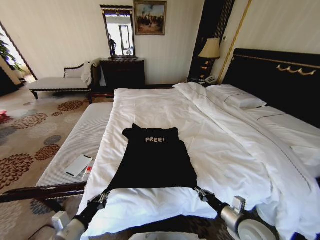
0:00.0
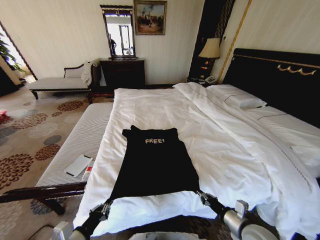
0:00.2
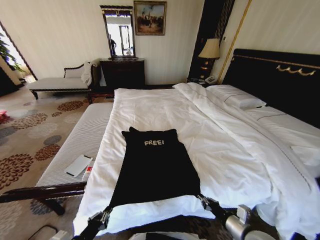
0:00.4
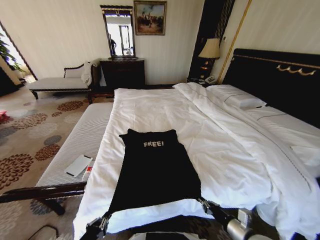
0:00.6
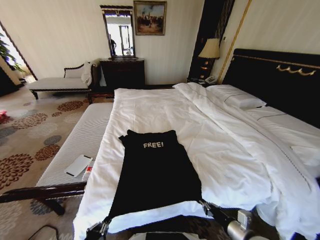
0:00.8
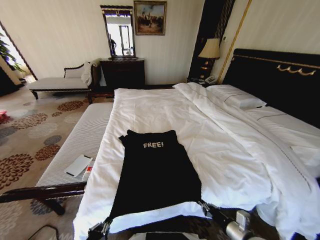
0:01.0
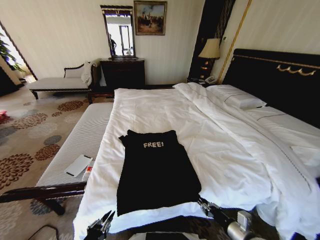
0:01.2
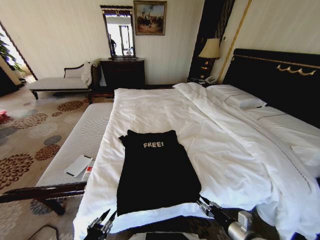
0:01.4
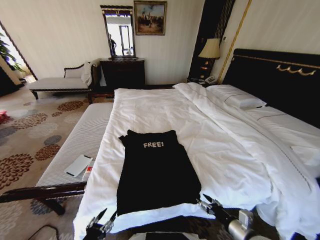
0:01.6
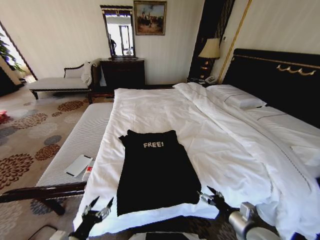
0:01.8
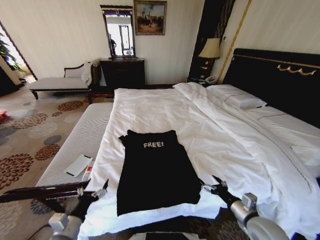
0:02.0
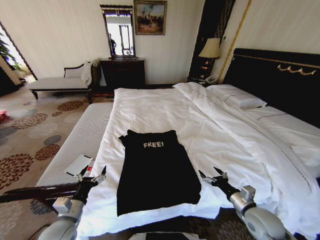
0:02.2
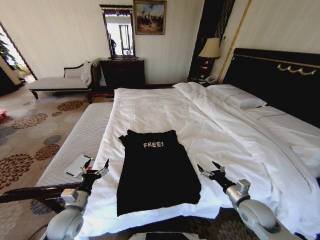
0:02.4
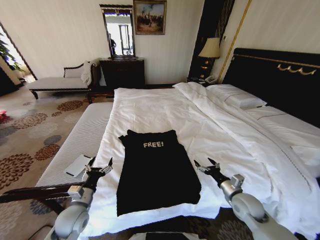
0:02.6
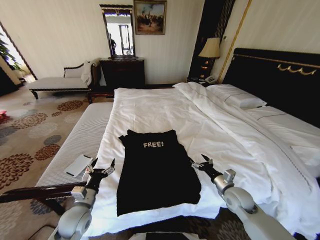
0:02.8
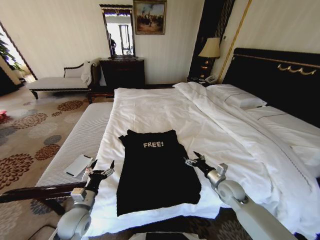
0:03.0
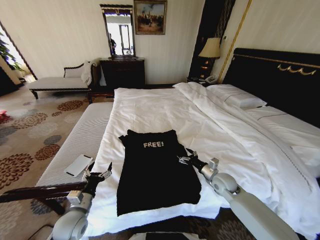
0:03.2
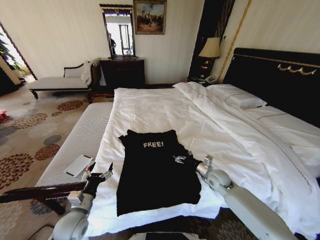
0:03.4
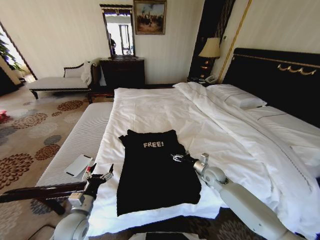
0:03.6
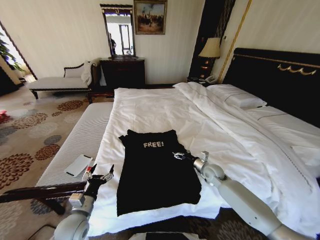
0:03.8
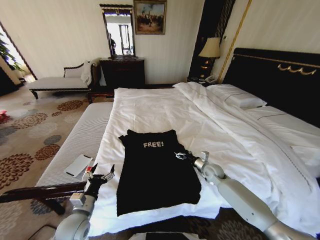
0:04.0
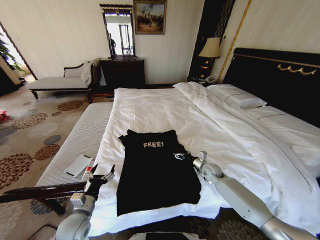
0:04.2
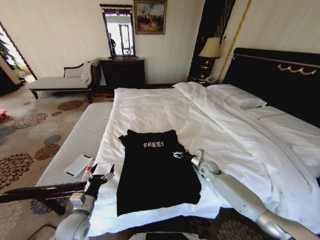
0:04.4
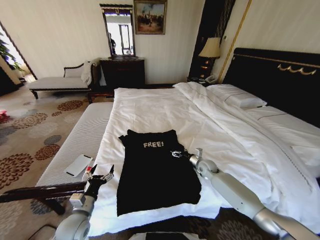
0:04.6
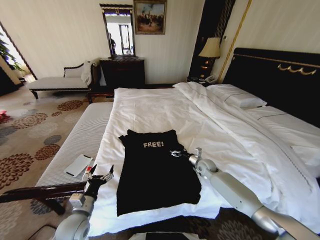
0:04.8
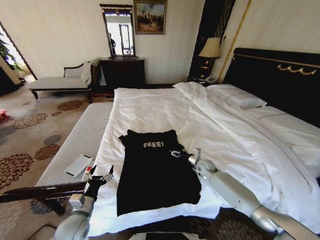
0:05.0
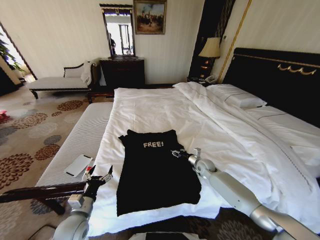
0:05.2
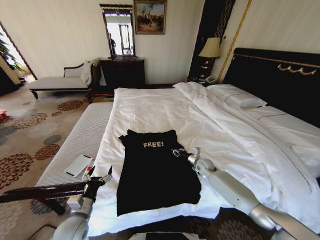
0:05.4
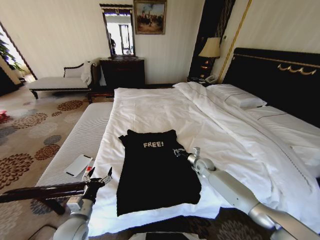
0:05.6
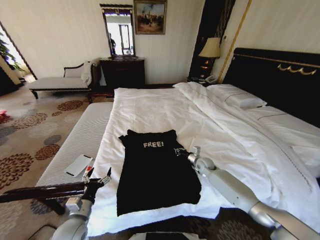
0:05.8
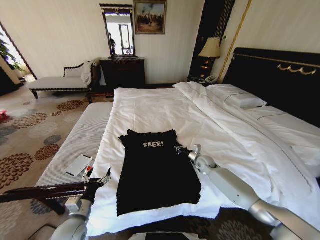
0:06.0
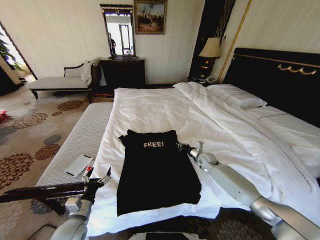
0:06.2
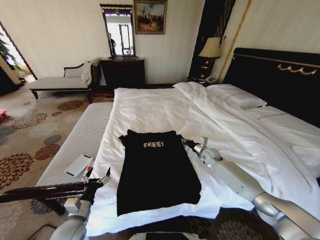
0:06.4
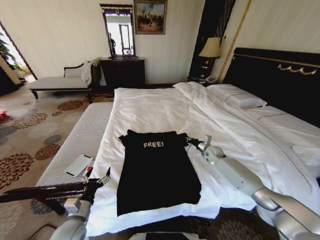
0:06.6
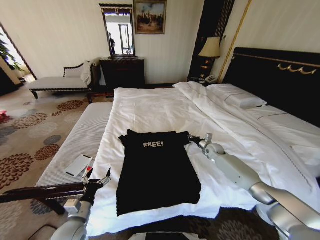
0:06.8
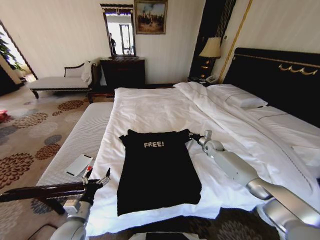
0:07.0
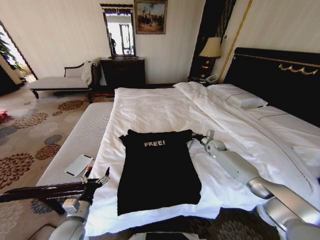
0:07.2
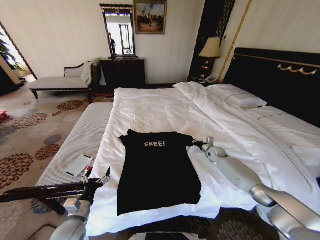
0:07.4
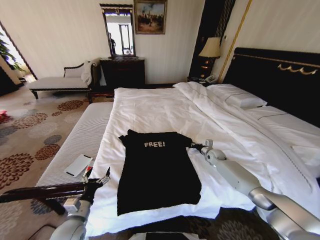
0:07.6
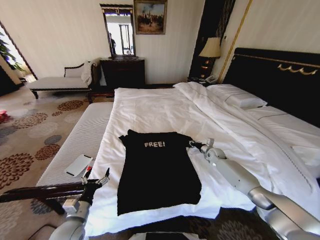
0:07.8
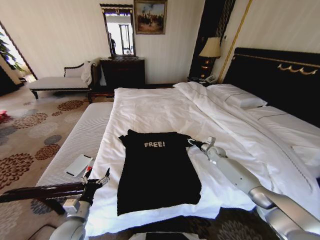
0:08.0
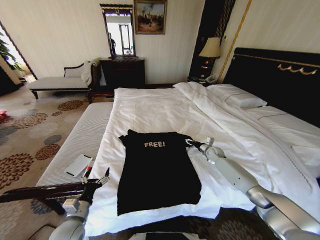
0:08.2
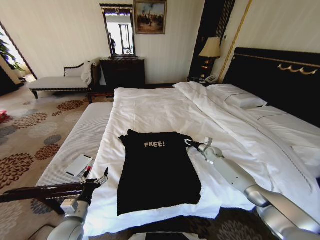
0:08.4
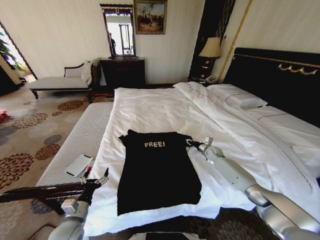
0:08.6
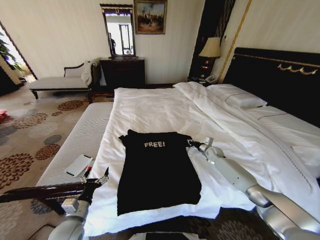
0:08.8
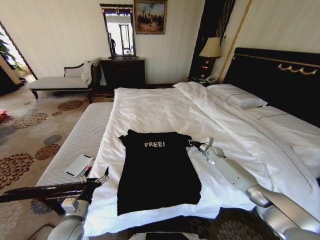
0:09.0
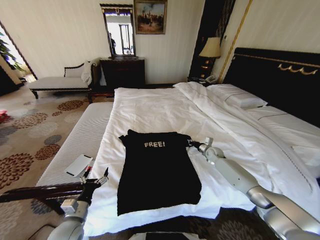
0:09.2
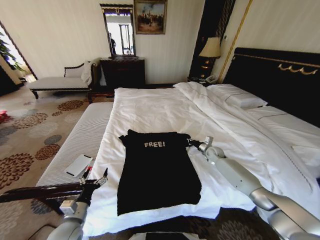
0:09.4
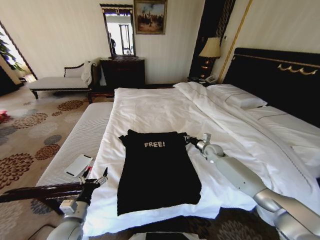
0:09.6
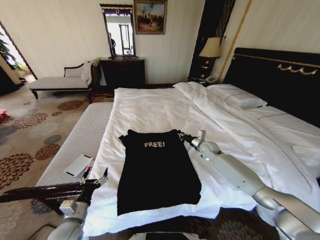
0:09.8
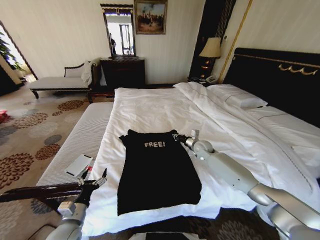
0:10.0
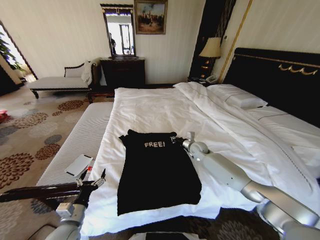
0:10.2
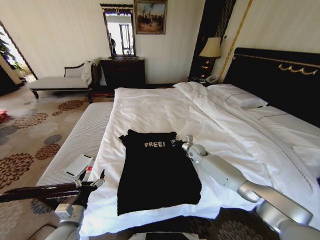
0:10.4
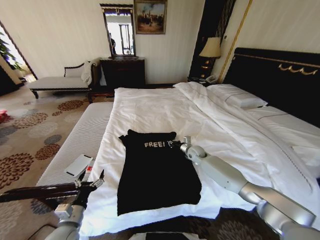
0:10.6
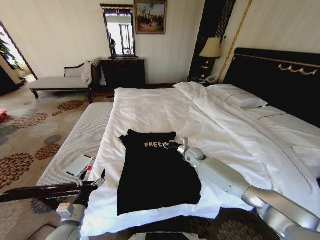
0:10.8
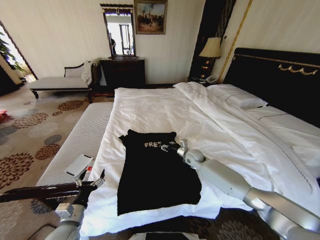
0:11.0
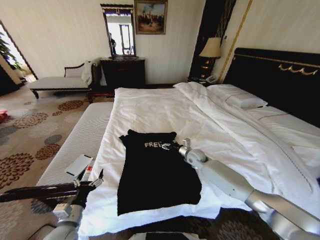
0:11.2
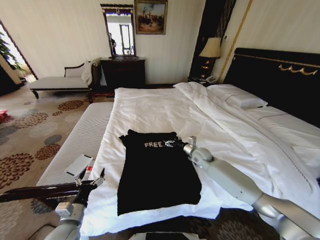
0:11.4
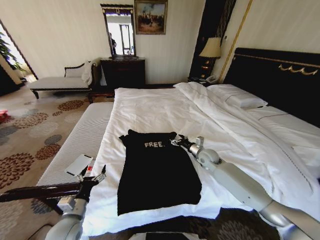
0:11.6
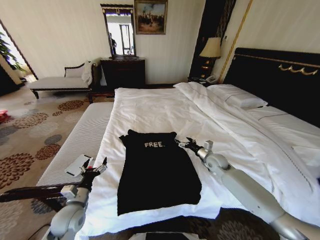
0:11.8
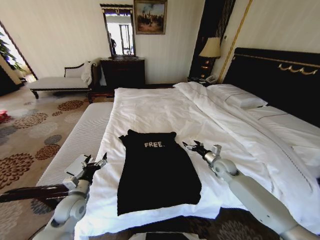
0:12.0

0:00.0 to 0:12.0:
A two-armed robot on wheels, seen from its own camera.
Task of the whole recording: Fold the clothes on the bed.
0:00.0 to 0:01.6: The left gripper shifts about 10 cm backward, and opens up, while the right gripper opens.
0:01.6 to 0:03.0: The two grippers go some 20 cm forward. The left gripper opens, while the right gripper opens its fingers.
0:03.0 to 0:04.4: The right gripper goes some 15 cm forward.
0:04.4 to 0:06.0: The right gripper closes its fingers.
0:06.0 to 0:07.6: The right gripper moves to the right and forward, approximately 10 cm.
0:07.6 to 0:09.0: The right gripper opens, then closes once more.
0:09.0 to 0:10.4: The right gripper shifts roughly 15 cm to the left.
0:10.4 to 0:12.0: The left gripper shifts roughly 10 cm forward. The right gripper moves backward and to the right, some 15 cm, and opens its fingers.

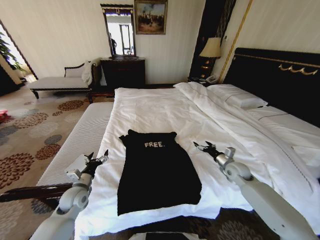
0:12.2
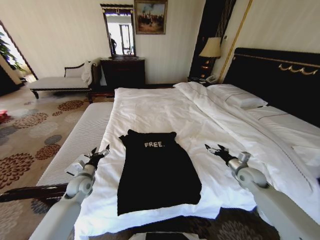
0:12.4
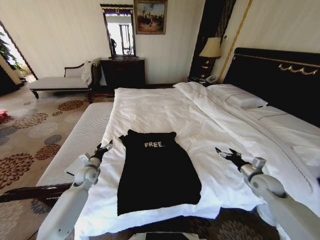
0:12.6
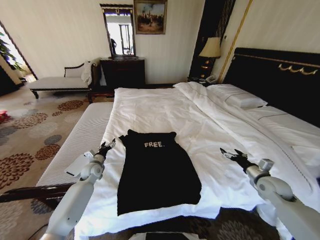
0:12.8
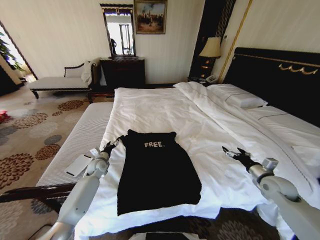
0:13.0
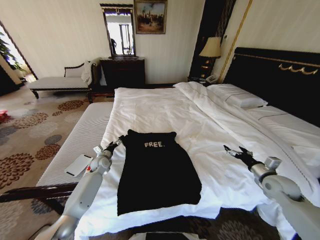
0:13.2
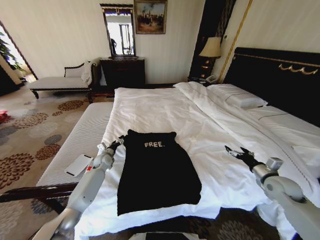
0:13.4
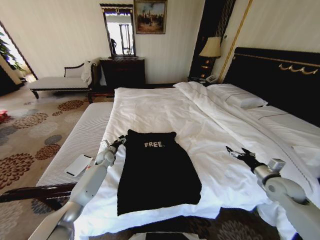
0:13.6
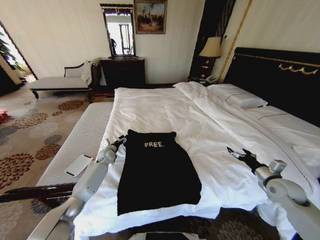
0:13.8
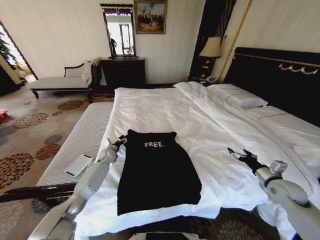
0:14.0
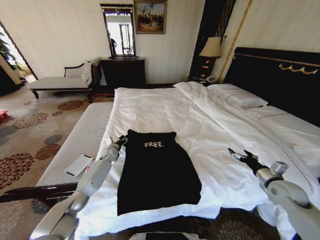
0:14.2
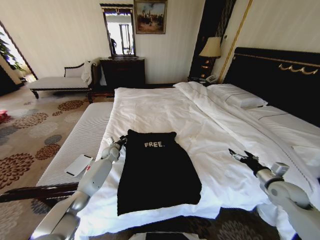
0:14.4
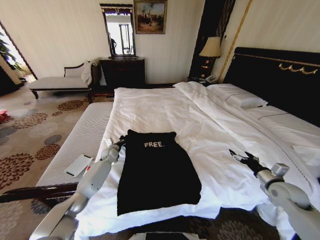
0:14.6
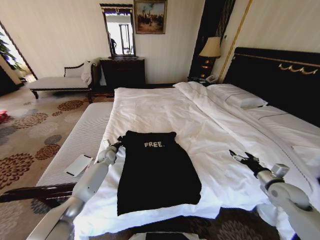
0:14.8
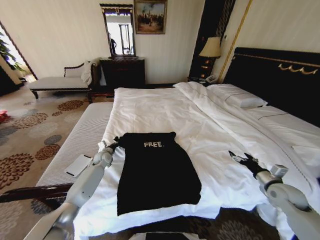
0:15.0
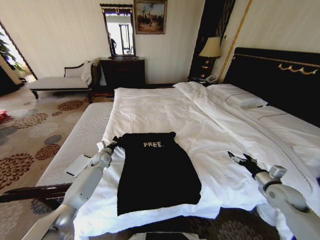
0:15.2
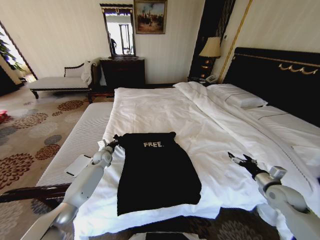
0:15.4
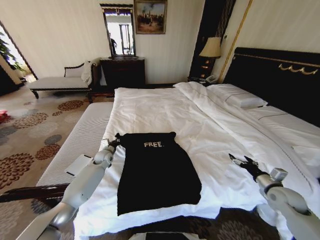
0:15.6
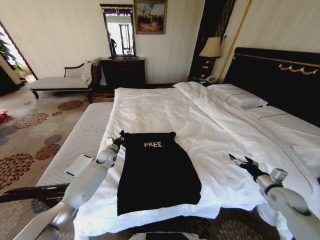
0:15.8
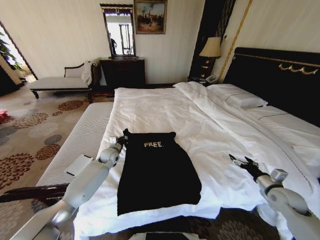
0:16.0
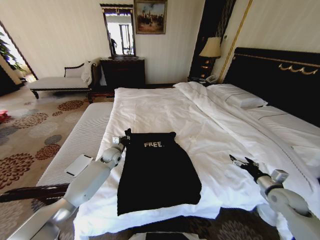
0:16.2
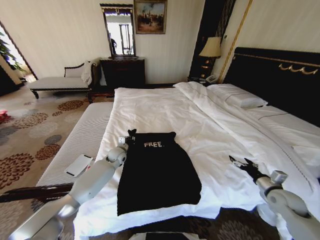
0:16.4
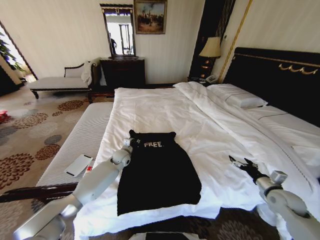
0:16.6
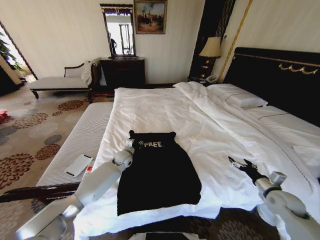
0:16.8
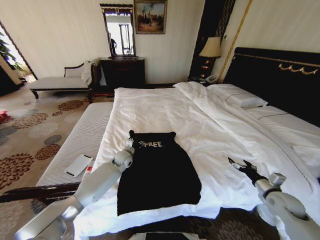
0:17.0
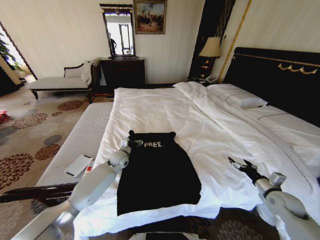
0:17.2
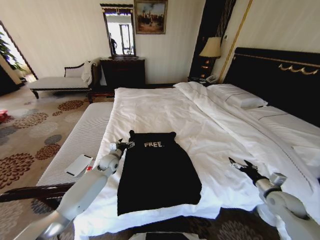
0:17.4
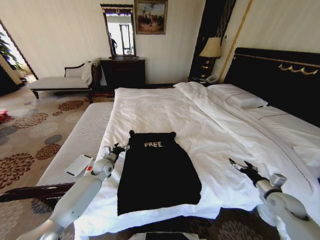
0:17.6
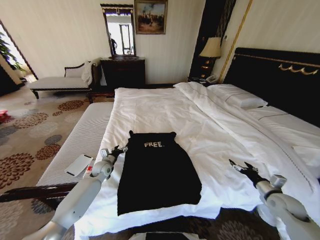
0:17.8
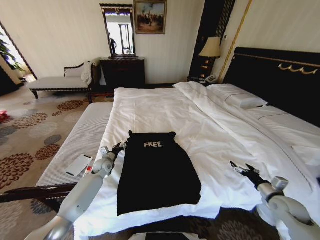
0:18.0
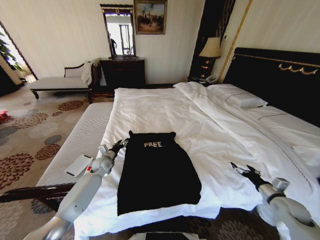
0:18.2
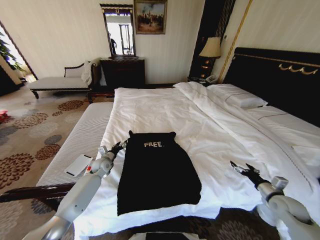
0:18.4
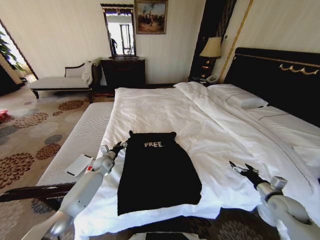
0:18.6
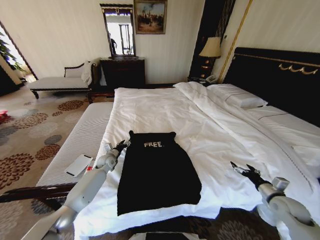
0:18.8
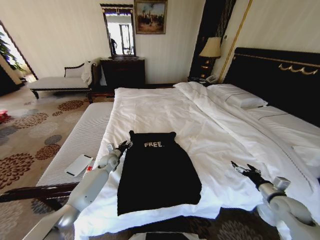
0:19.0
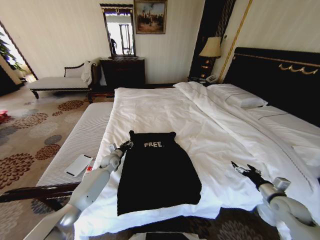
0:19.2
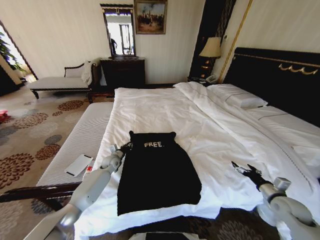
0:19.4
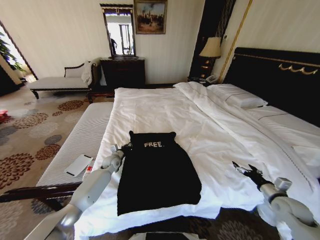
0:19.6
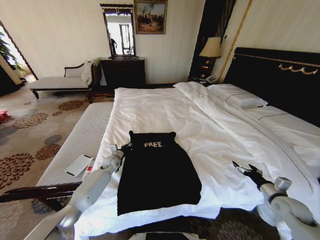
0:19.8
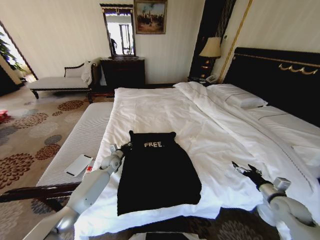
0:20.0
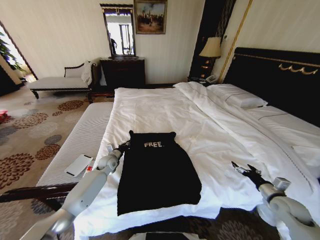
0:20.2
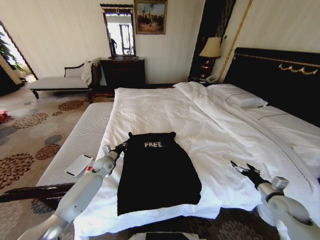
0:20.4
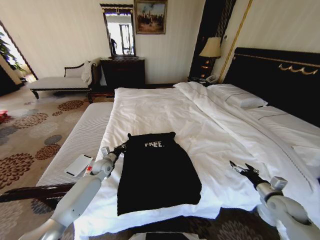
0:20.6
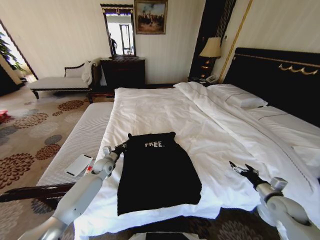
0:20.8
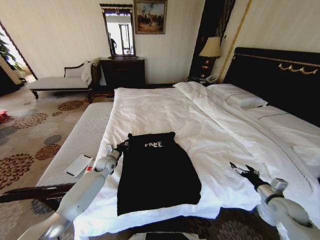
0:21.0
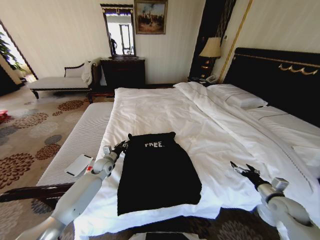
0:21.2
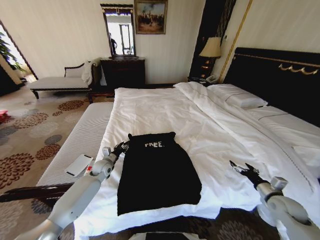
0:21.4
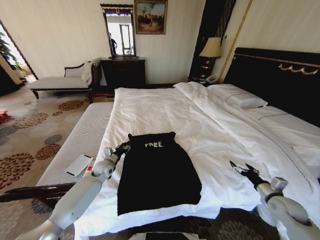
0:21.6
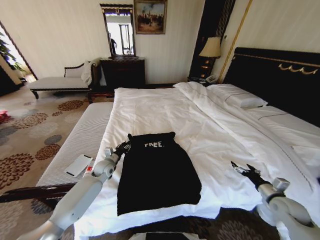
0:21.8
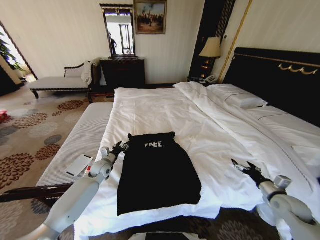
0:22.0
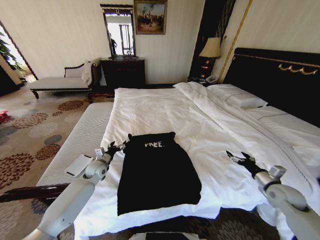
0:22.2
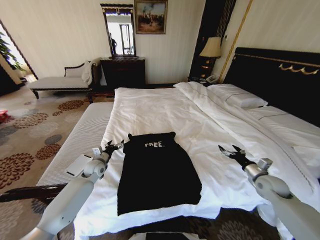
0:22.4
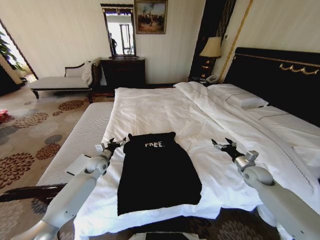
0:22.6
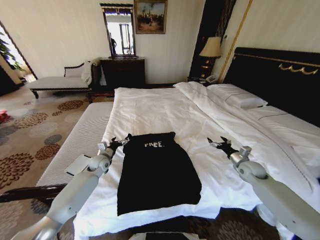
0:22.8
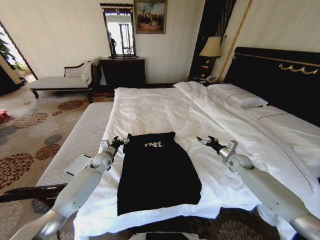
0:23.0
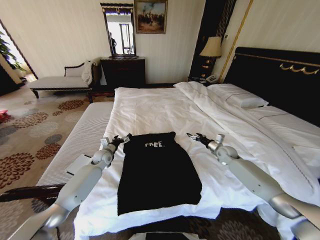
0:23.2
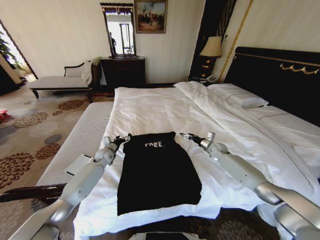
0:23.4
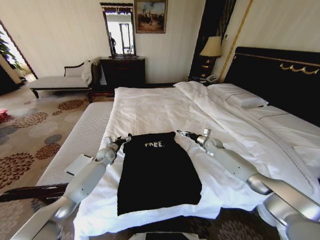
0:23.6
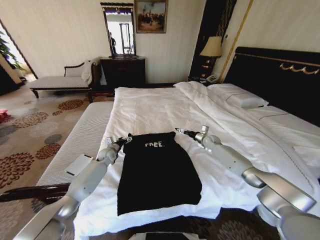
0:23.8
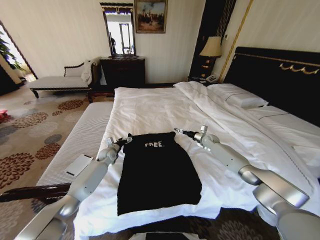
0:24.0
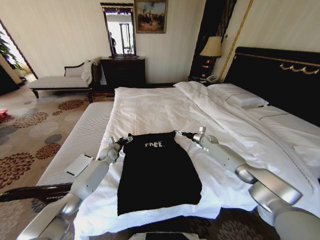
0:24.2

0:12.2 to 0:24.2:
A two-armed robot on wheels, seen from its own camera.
Task of the whole recording: Fold the clothes on the bed.
0:12.2 to 0:13.8: The left gripper shifts approximately 25 cm forward; the right gripper goes approximately 15 cm backward and to the right.
0:13.8 to 0:15.2: The left gripper closes up.
0:15.2 to 0:16.6: The left gripper travels to the right by about 15 cm.
0:16.6 to 0:18.2: The left gripper is displaced to the left by some 10 cm, and opens, then closes once more.
0:18.2 to 0:19.8: The left gripper changes place by some 5 cm, and closes its fingers.
0:19.8 to 0:21.2: The left gripper ends up approximately 5 cm from where it was.
0:21.2 to 0:22.6: The left gripper opens up. The right gripper is displaced forward by roughly 10 cm.
0:22.6 to 0:24.2: The right gripper is displaced forward and to the left by about 30 cm. Meanwhile the left gripper goes roughly 10 cm forward.
